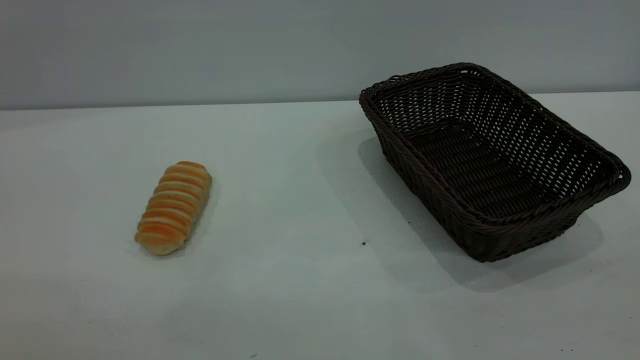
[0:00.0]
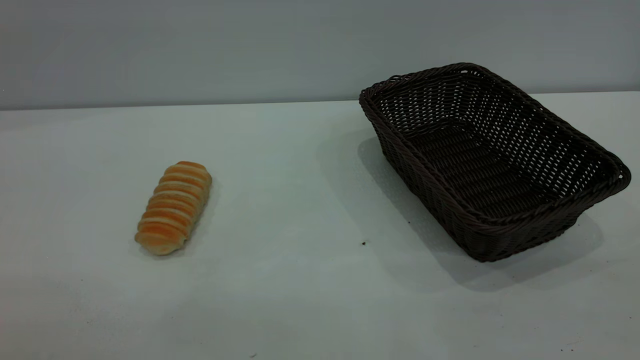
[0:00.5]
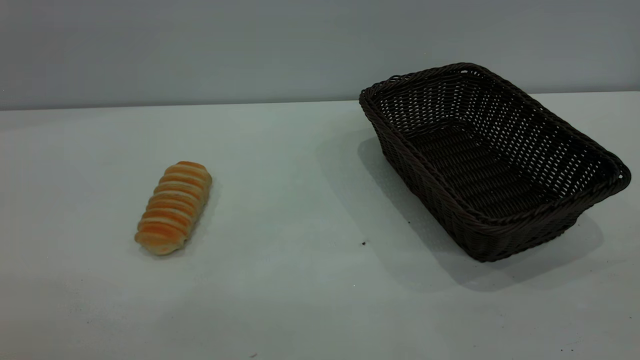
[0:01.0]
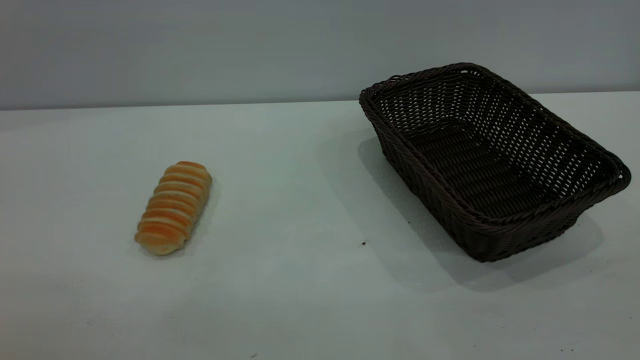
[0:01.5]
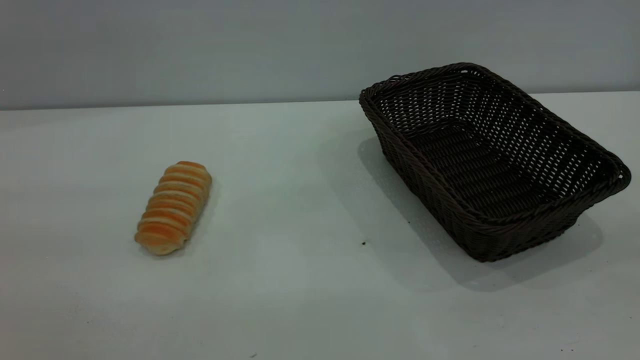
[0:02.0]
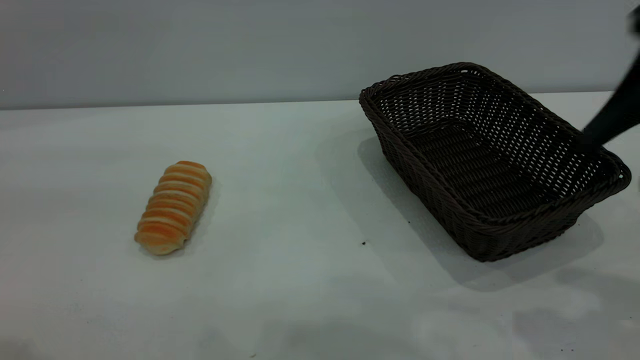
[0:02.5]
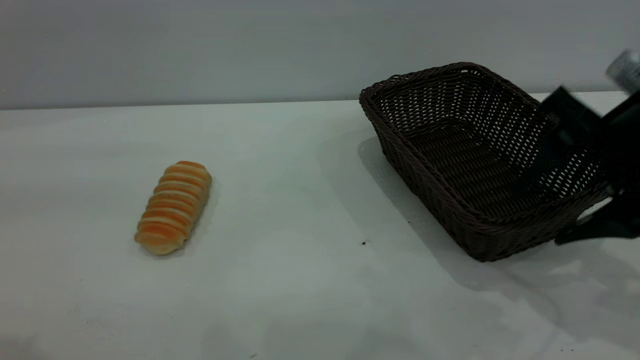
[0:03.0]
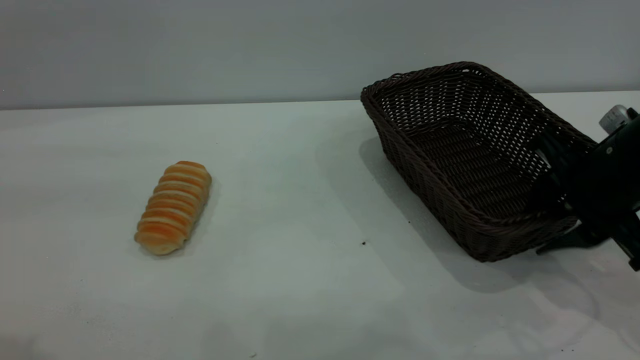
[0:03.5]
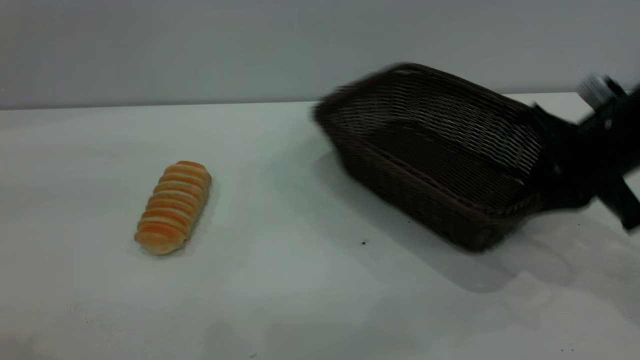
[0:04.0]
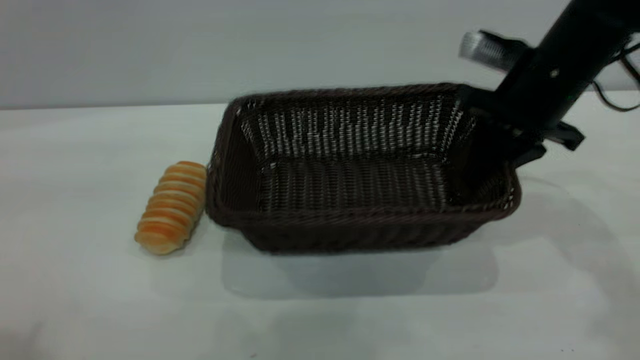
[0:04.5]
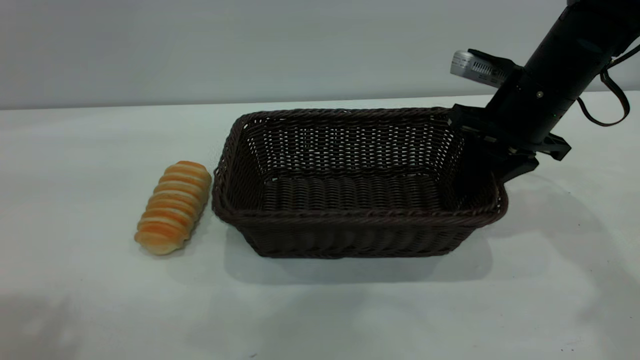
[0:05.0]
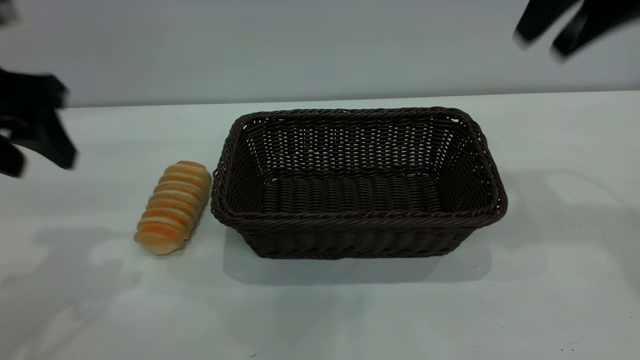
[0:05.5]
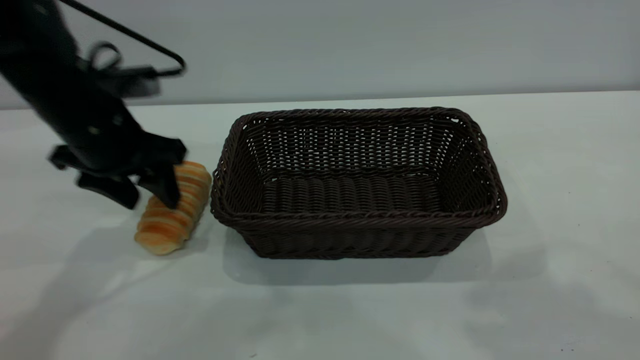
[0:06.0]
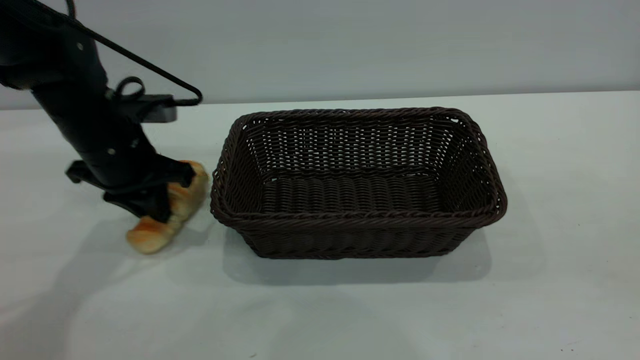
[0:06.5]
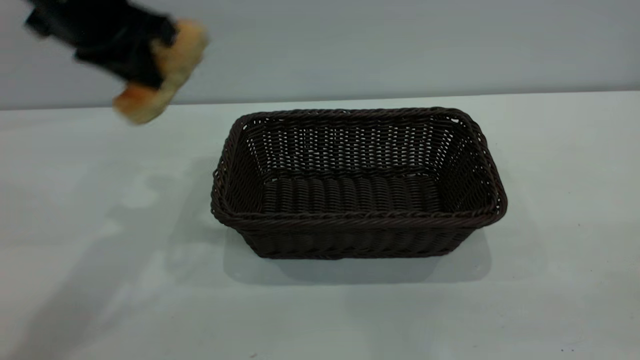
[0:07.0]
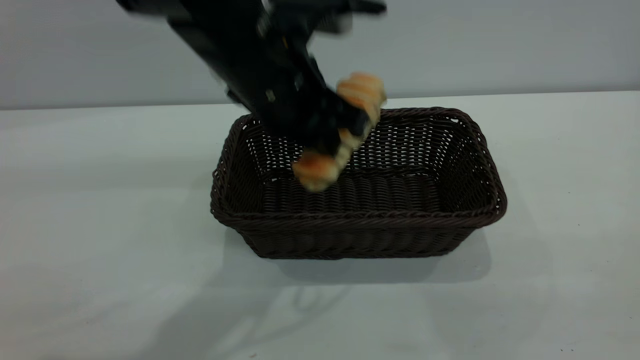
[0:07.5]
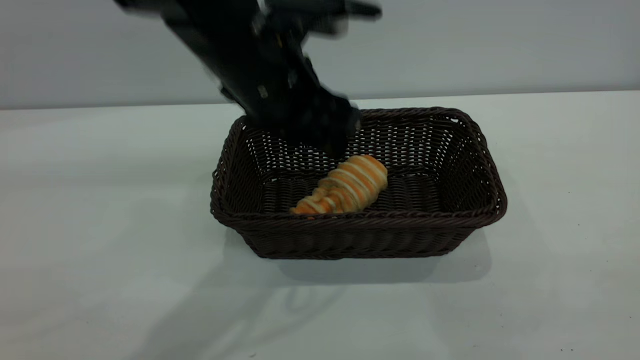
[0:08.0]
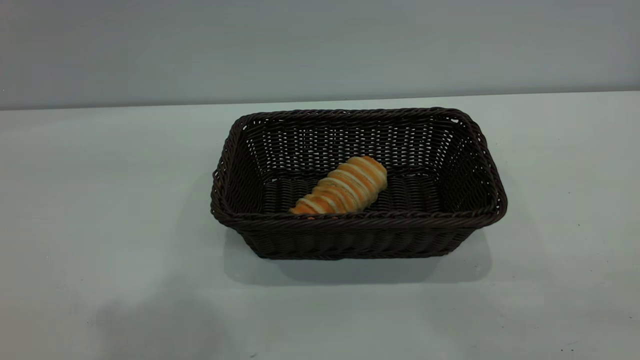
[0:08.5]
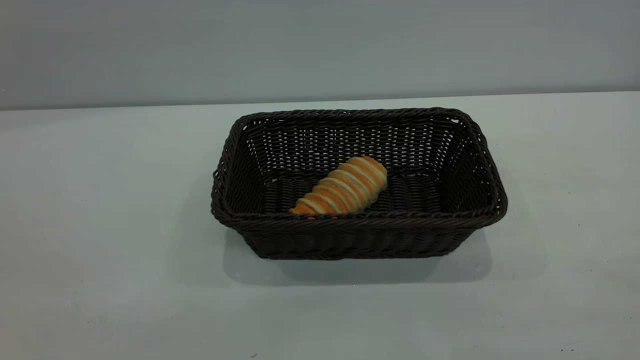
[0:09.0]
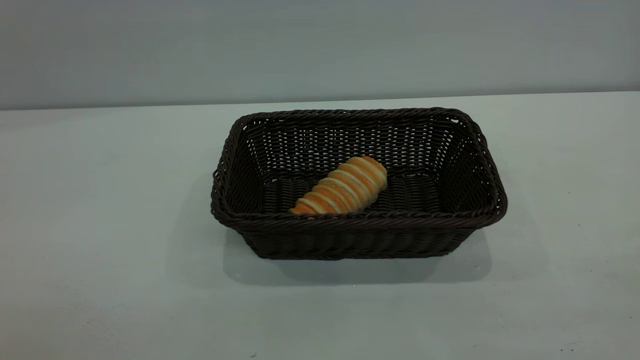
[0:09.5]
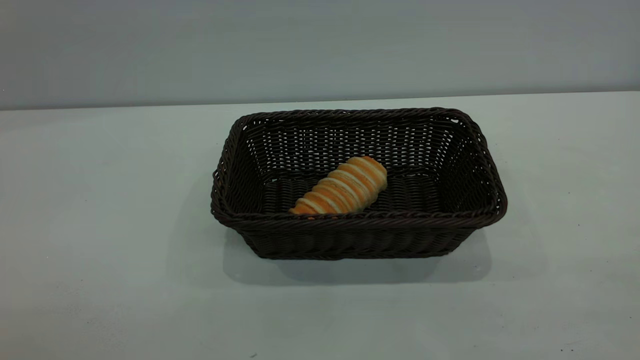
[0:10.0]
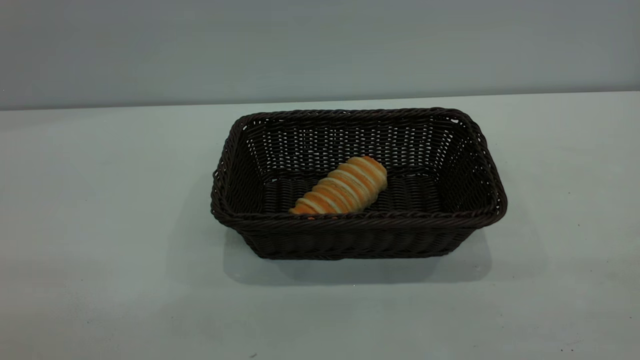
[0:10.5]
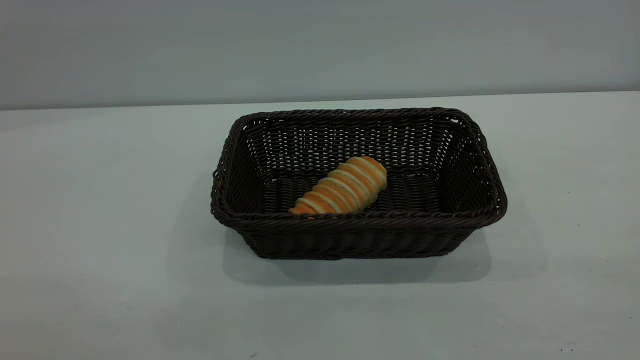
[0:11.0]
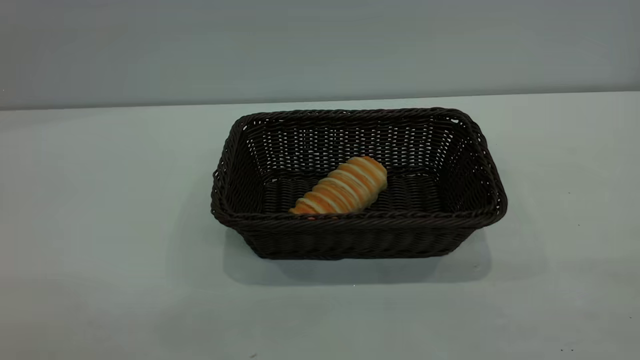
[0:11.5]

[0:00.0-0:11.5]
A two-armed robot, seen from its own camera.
Task of the whole recording: One hand grasps the black basket and places it in the middle of the table, while the other hand picks up the long bread and puts it into the black basket.
Step, 0:00.0 to 0:05.0: Move the basket to the center of view.
Step, 0:07.0 to 0:08.0: place the bread into the basket.
0:02.0 to 0:04.0: The left gripper travels forward by approximately 10 cm, while the right gripper goes about 30 cm forward and downward, and closes up.
0:04.0 to 0:06.0: The left gripper travels downward and forward by about 35 cm; the right gripper goes some 30 cm upward and backward, and opens its fingers.
0:06.0 to 0:07.5: The right gripper goes about 25 cm backward and downward, while the left gripper moves to the right, about 15 cm, and closes up.
0:07.5 to 0:09.5: The left gripper shifts about 40 cm backward, to the left and upward, and opens its fingers.
